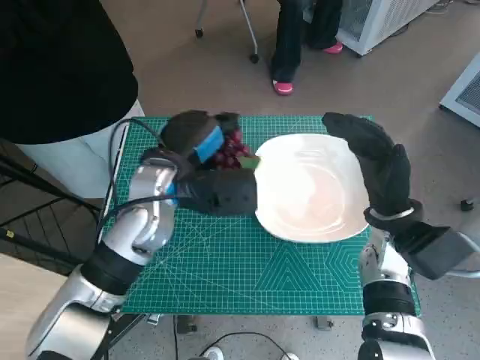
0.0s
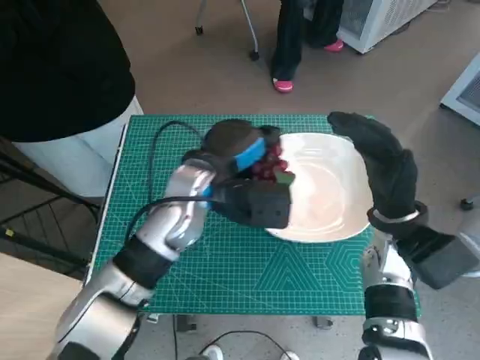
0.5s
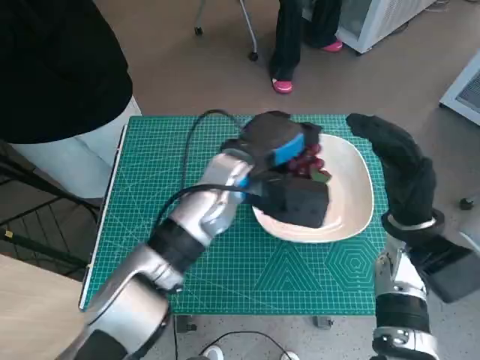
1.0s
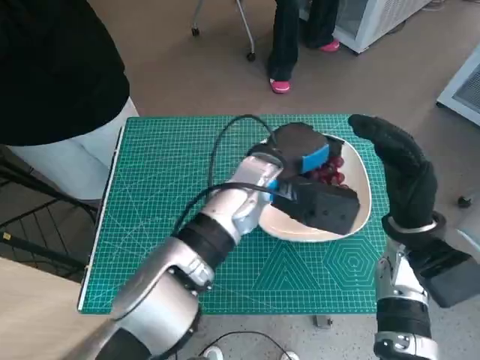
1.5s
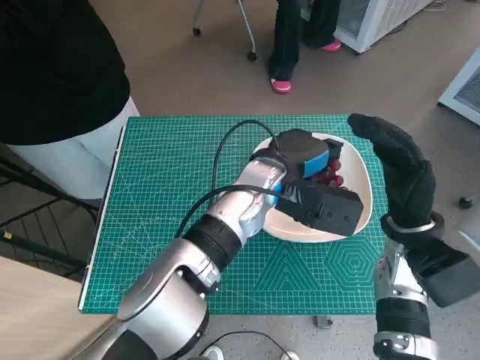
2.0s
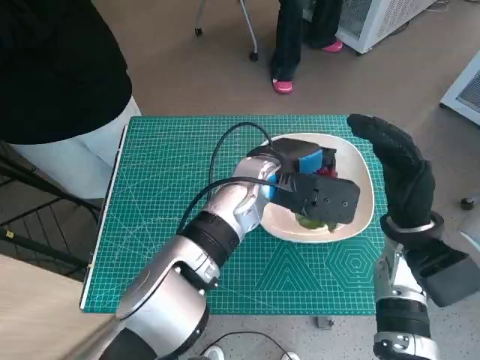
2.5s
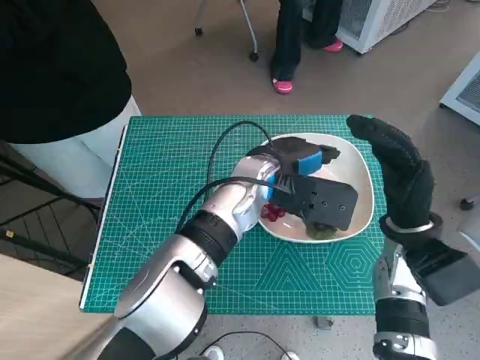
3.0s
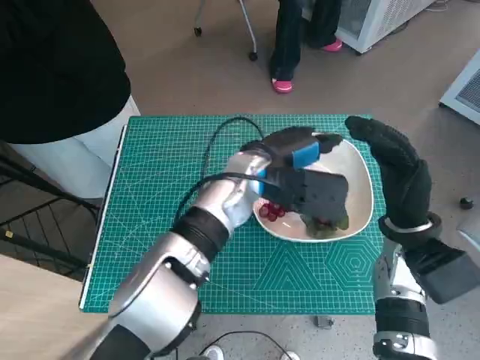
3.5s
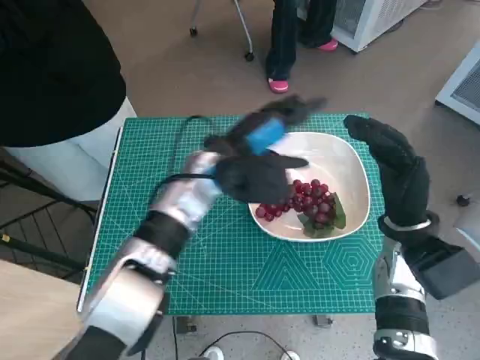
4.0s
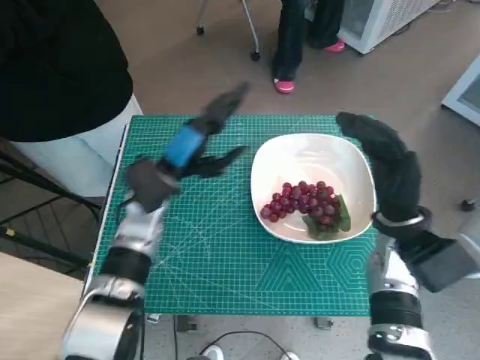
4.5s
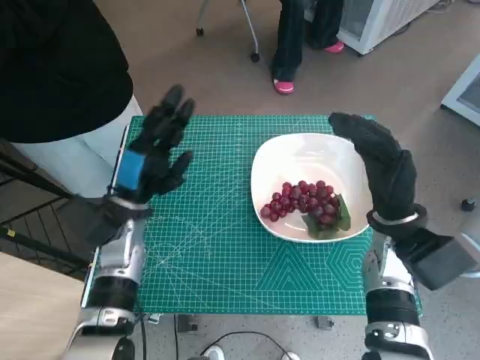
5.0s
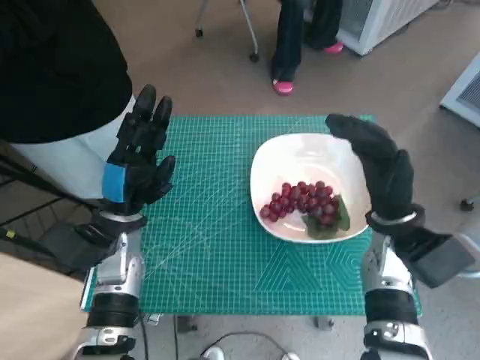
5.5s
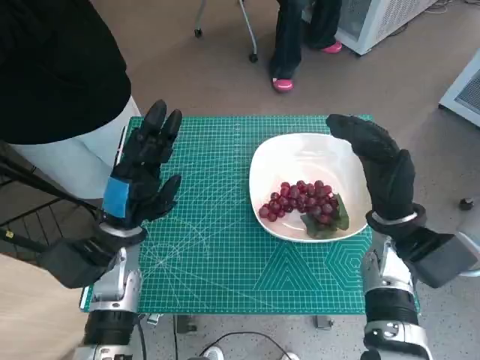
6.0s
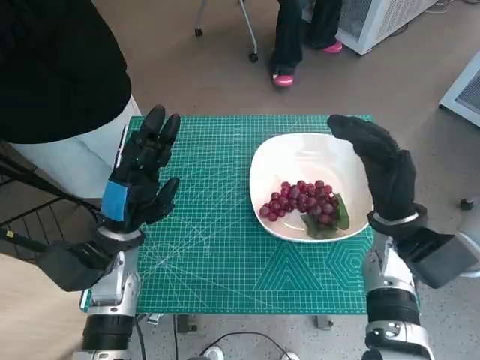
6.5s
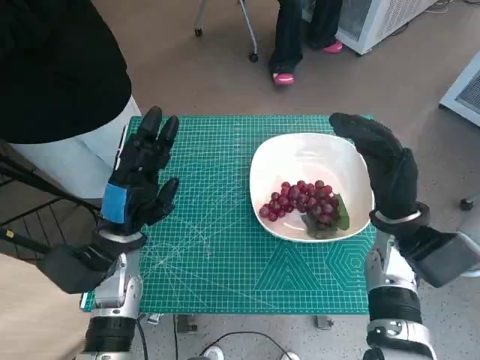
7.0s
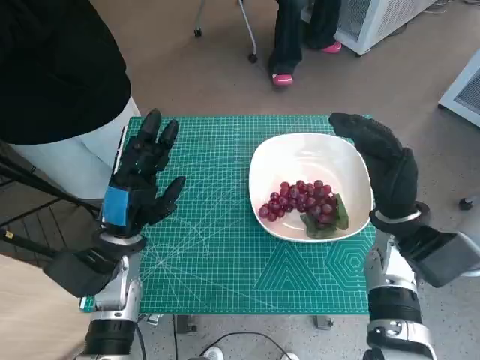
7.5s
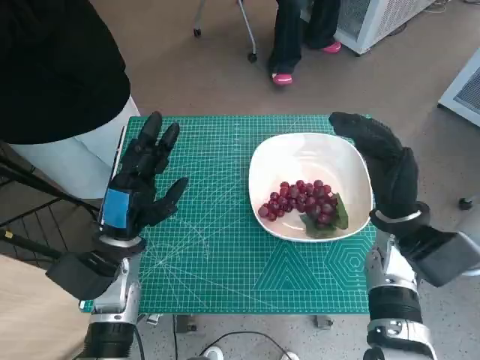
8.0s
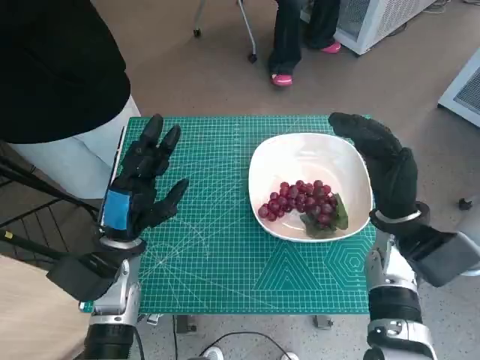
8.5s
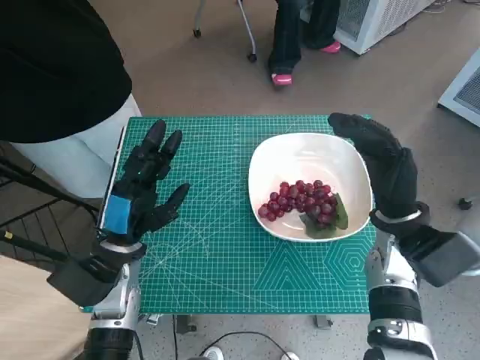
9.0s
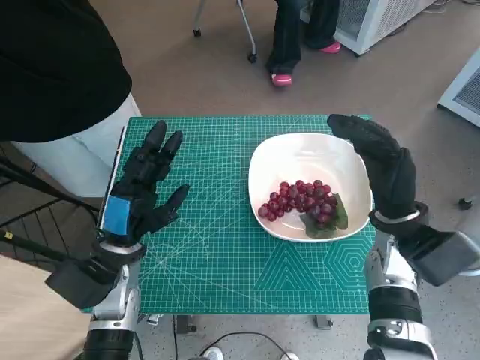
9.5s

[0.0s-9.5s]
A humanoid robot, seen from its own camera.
Task of the whole recording: Pick up the grapes and put them on the plate.
Step, 0.0s to 3.0s: Place the grapes in the plate with left hand.
0.0s to 2.0s: The left hand shifts roughly 15 cm to the right.
2.0s to 4.0s: The left hand shifts about 5 cm to the left.
4.0s to 5.5s: The left hand shifts approximately 15 cm to the left, backward and downward.
5.5s to 7.5s: The hands move only a little.
7.5s to 9.5s: The two hands keep their place.

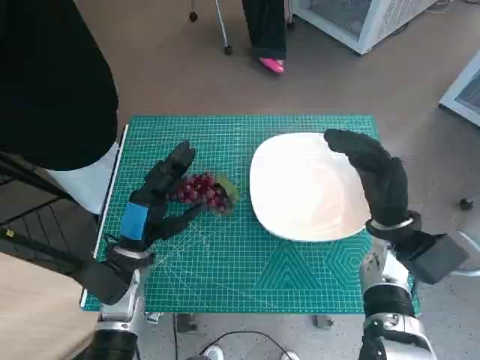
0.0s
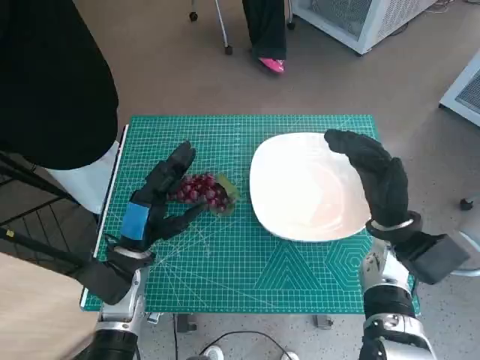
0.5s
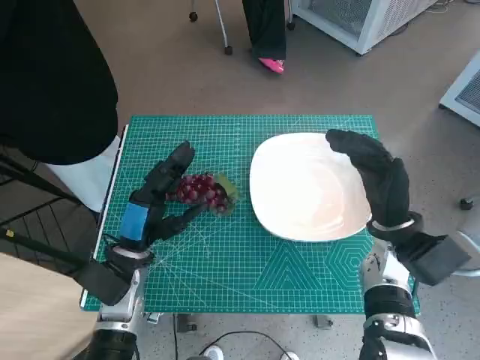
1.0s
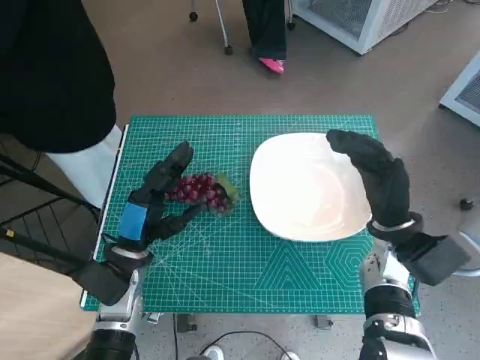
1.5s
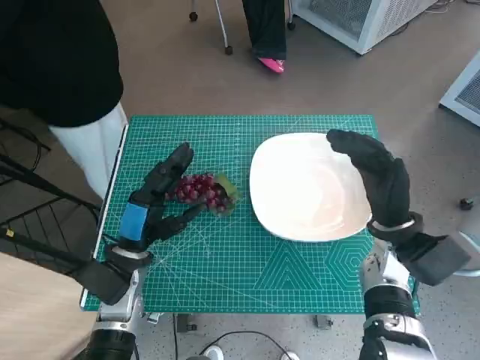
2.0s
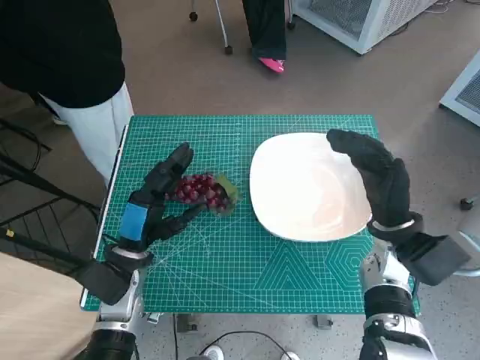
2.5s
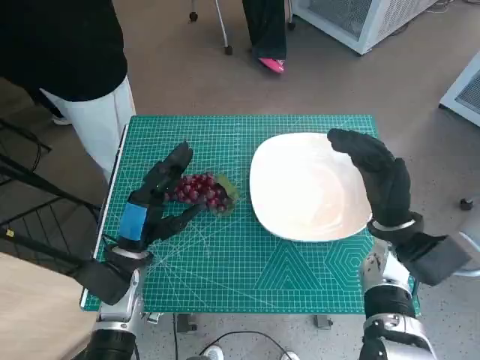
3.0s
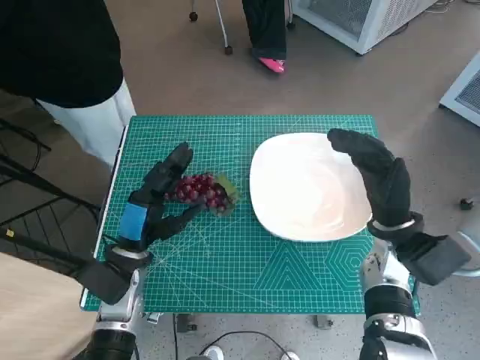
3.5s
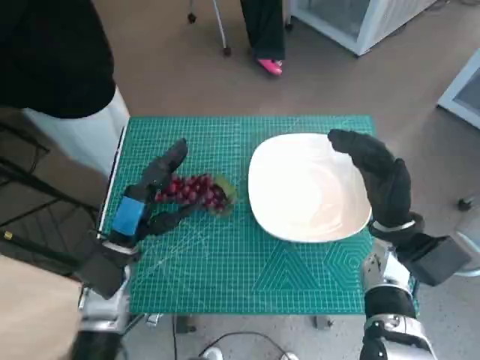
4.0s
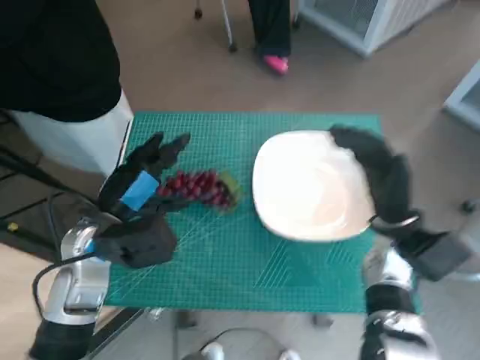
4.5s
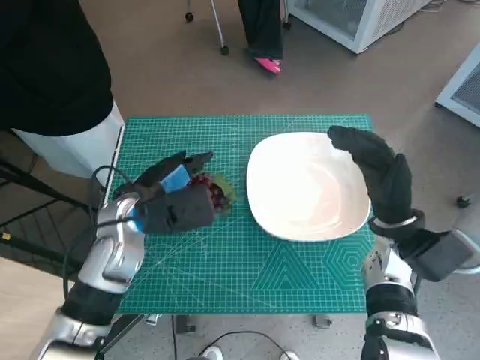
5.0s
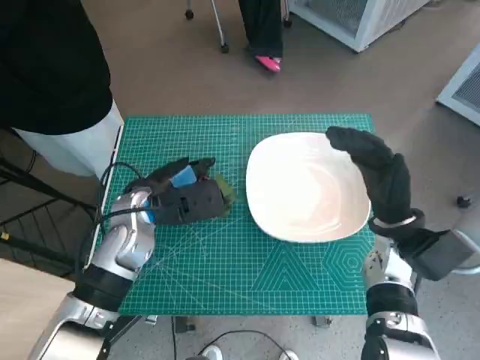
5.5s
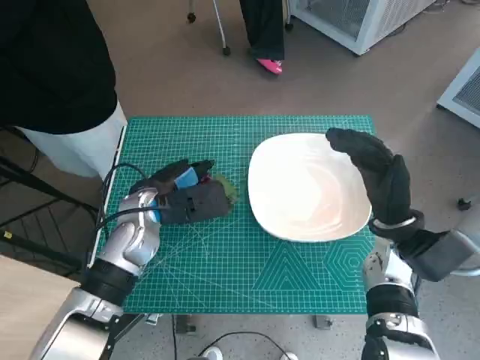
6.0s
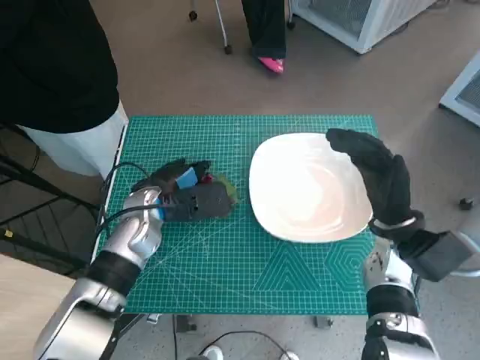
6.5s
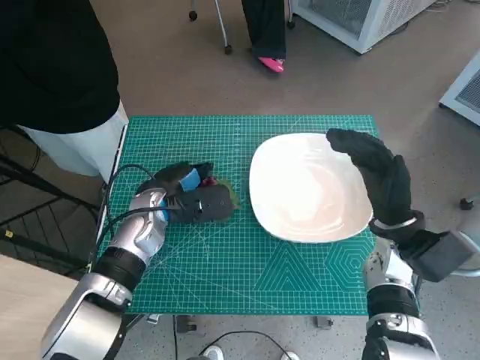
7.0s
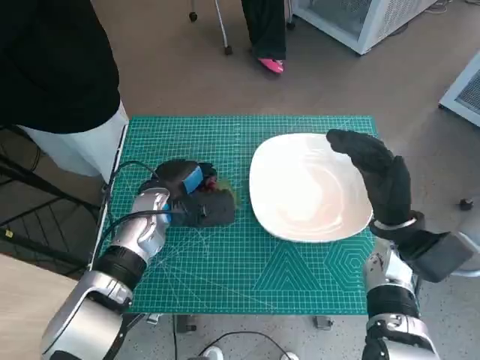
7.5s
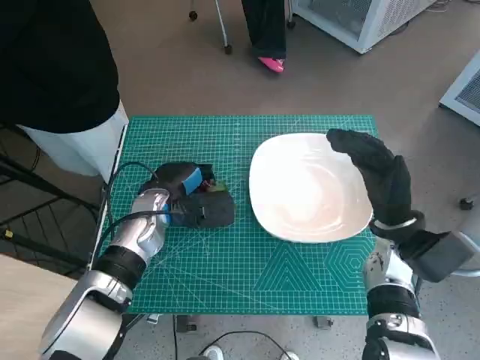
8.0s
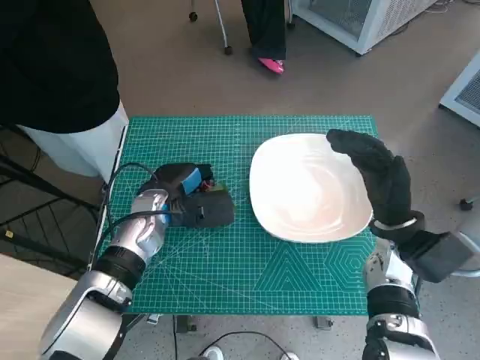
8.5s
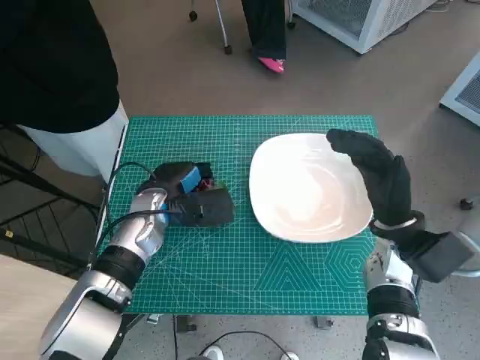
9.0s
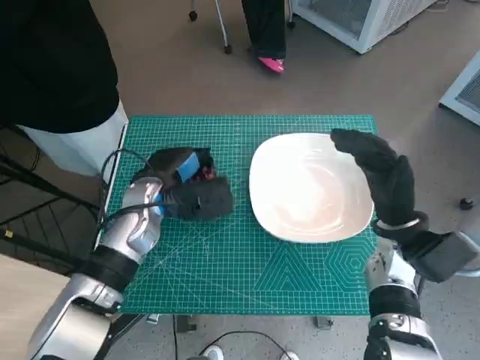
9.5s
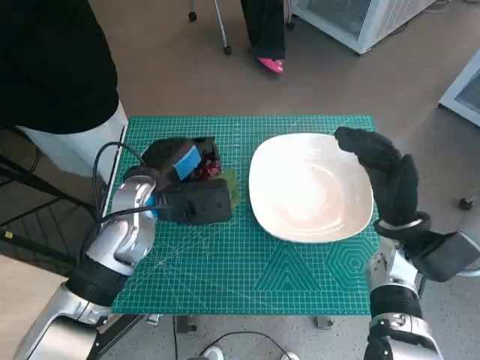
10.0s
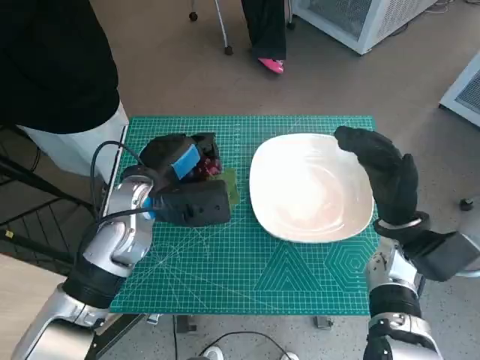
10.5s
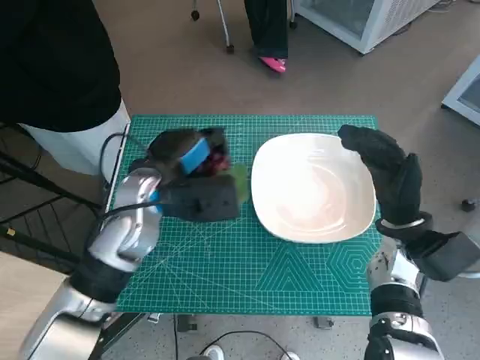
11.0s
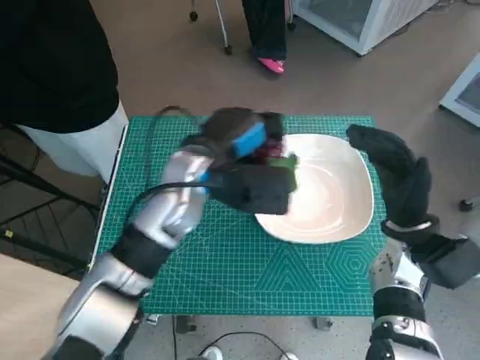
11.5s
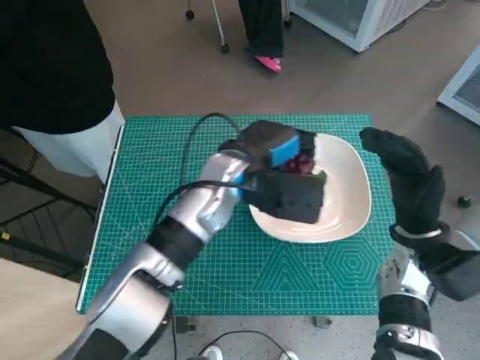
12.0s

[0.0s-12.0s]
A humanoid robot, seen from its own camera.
Task of the whole recording: Pick up the grapes and put them on the plate.
Step, 0.0s to 8.5s: Grasp the grapes with left hand.
2.0s to 4.0s: The hands move only a little.
4.0s to 6.0s: The left hand shifts some 5 cm forward.
6.0s to 8.0s: The hands move only a little.
8.0s to 10.0s: The left hand goes approximately 5 cm upward.
10.0s to 12.0s: The left hand heads to the right, covering some 10 cm.

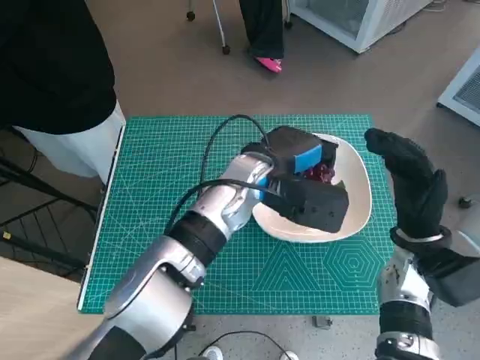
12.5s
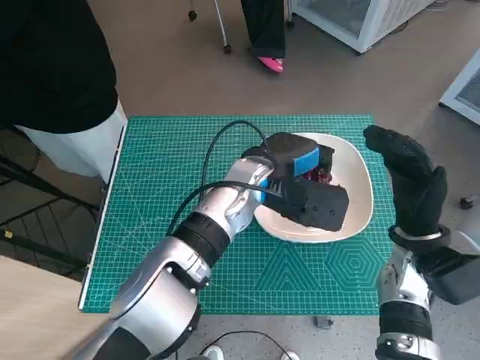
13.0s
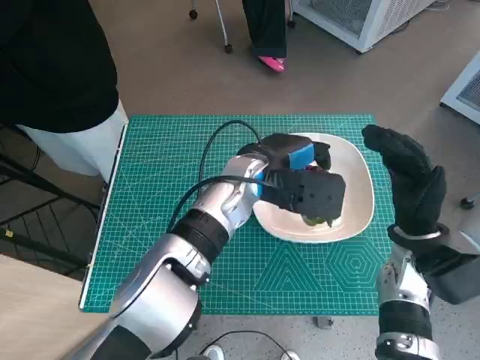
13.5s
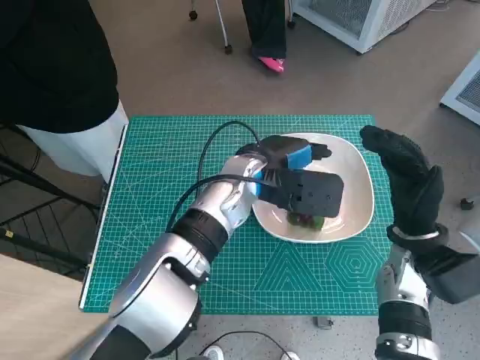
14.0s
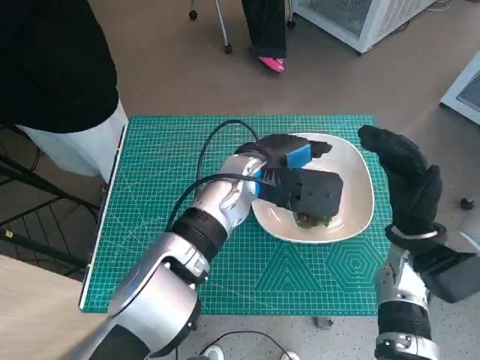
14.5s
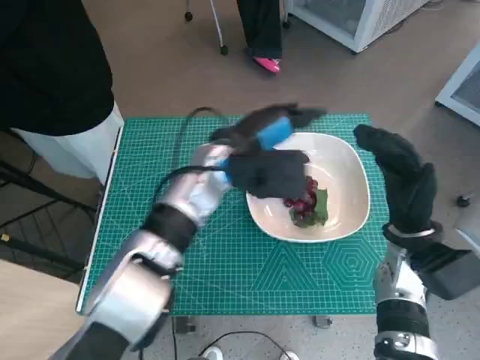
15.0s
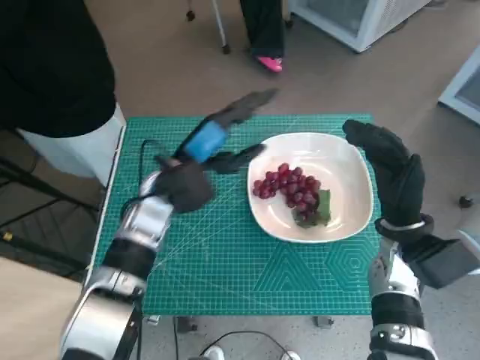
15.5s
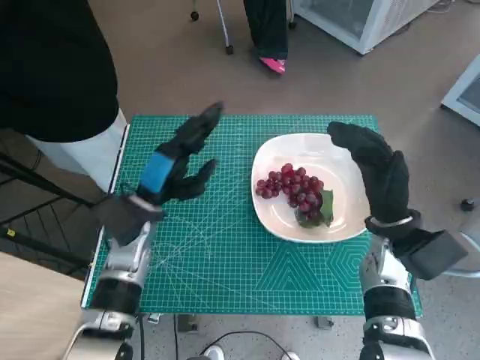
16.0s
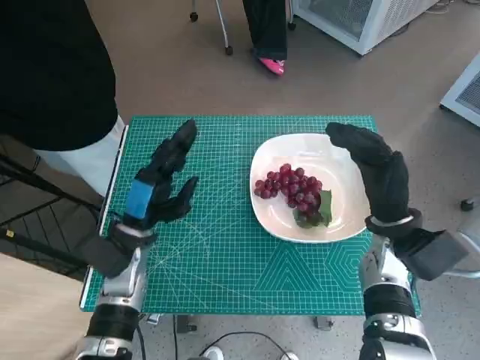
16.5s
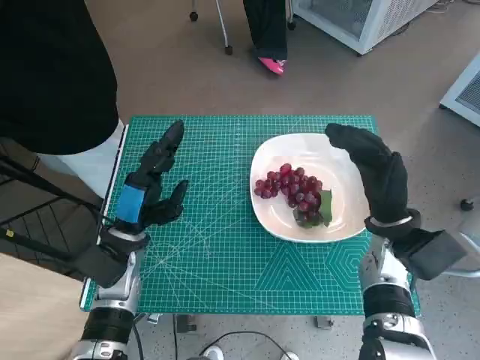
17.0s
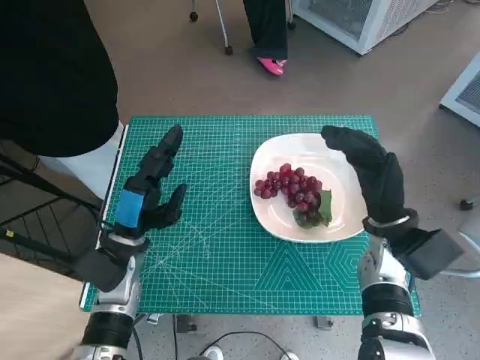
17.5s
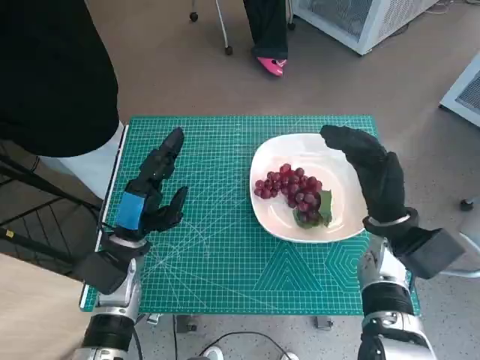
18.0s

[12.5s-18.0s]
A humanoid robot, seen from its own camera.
Task of the whole recording: Pick up the grapes and put them on the plate.
12.5s to 14.5s: The hands make only small movements.
14.5s to 16.0s: The left hand is displaced to the left by roughly 15 cm.
16.0s to 18.0s: The left hand ends up approximately 5 cm from where it was.
